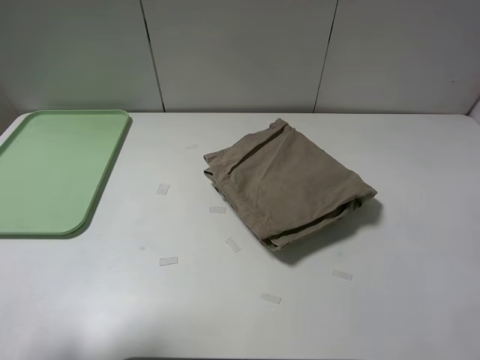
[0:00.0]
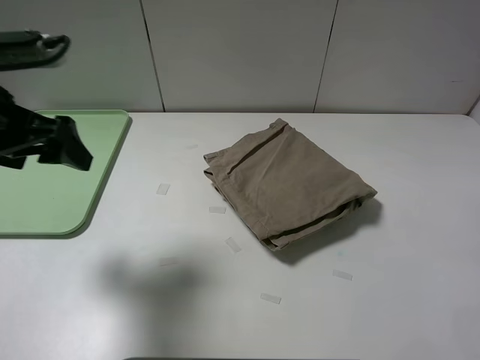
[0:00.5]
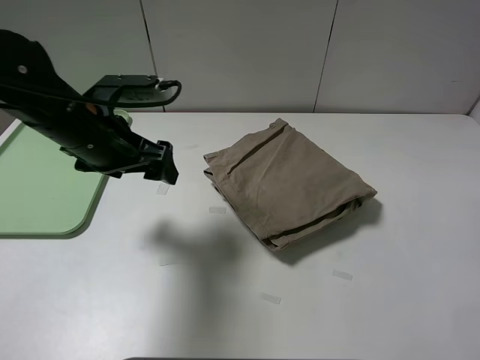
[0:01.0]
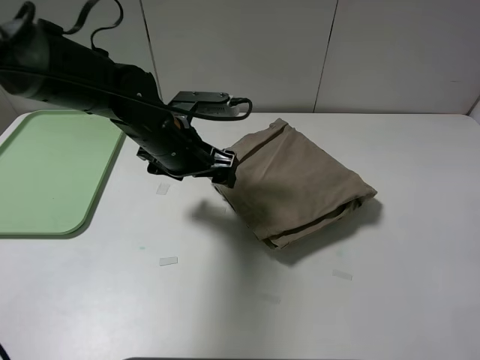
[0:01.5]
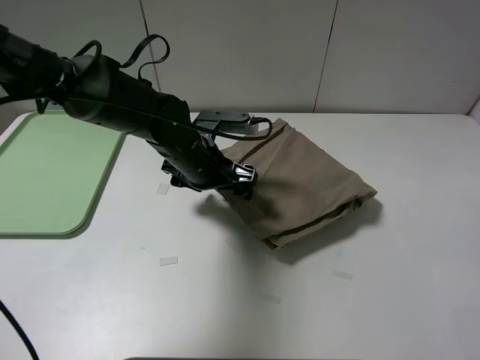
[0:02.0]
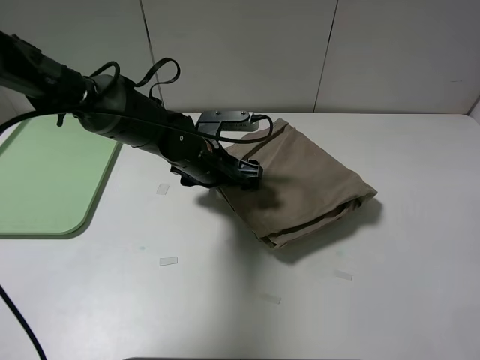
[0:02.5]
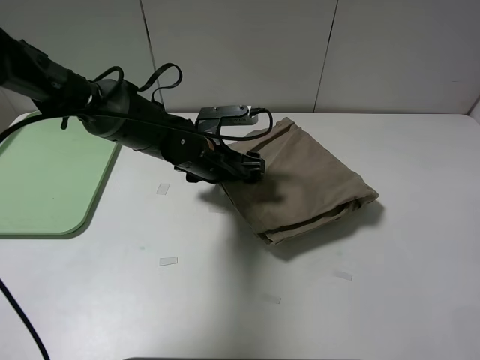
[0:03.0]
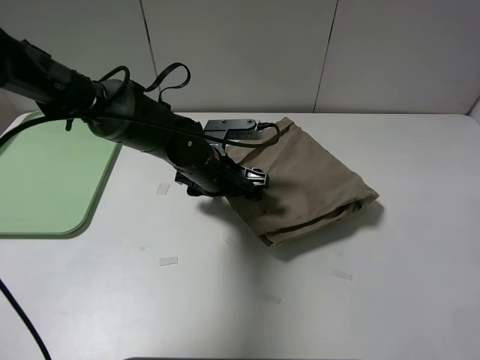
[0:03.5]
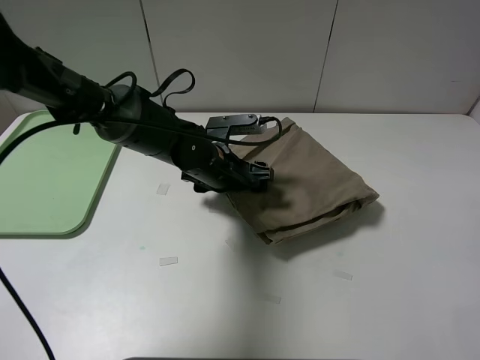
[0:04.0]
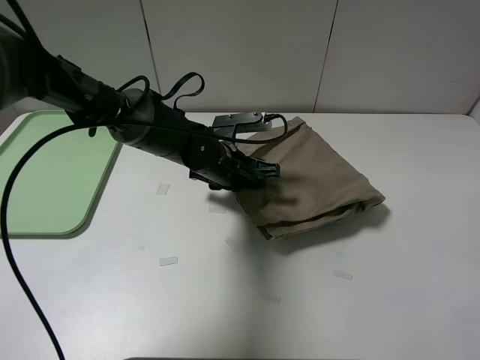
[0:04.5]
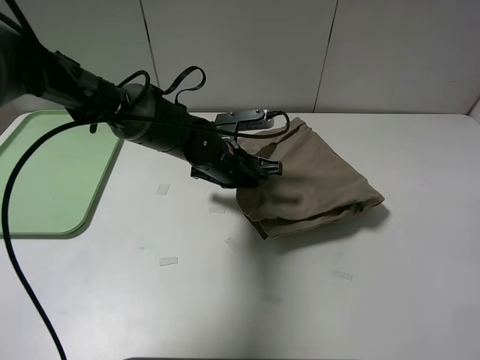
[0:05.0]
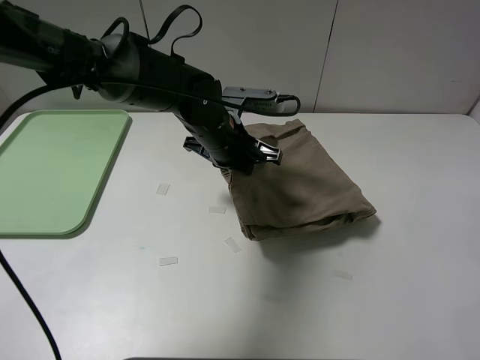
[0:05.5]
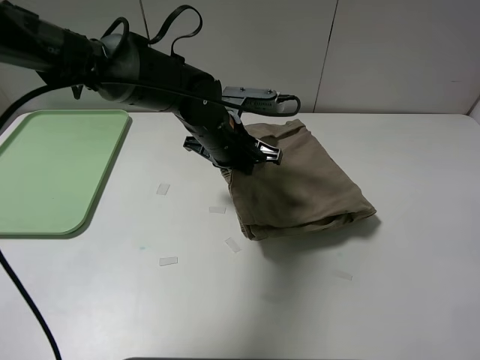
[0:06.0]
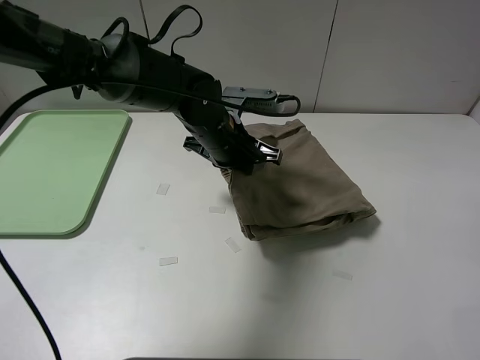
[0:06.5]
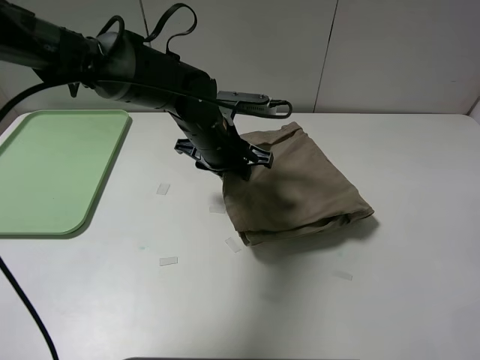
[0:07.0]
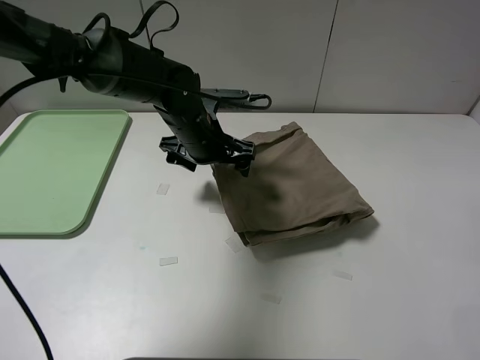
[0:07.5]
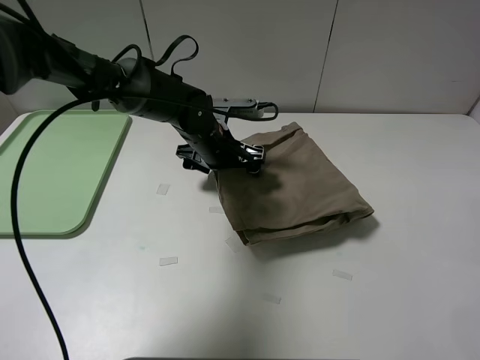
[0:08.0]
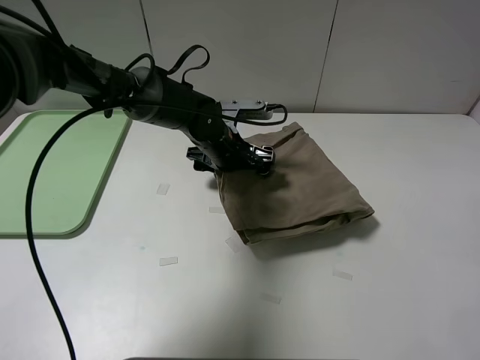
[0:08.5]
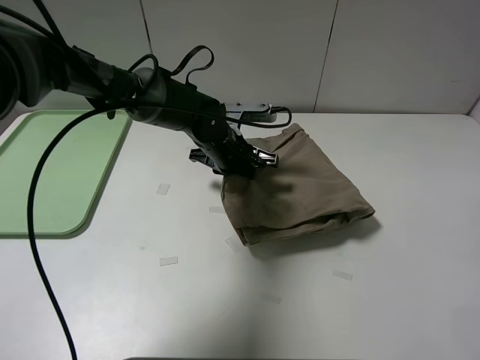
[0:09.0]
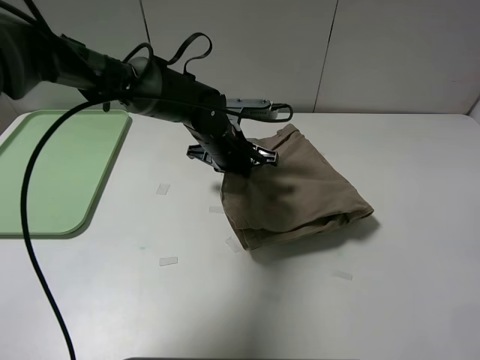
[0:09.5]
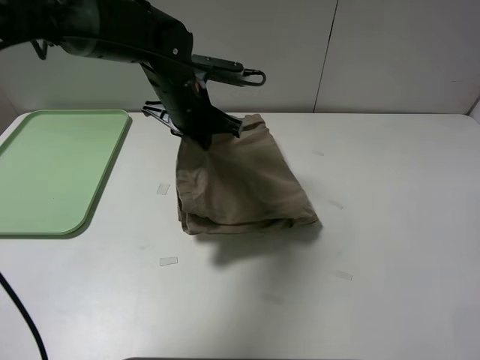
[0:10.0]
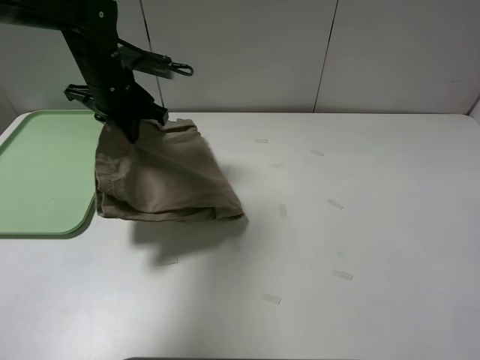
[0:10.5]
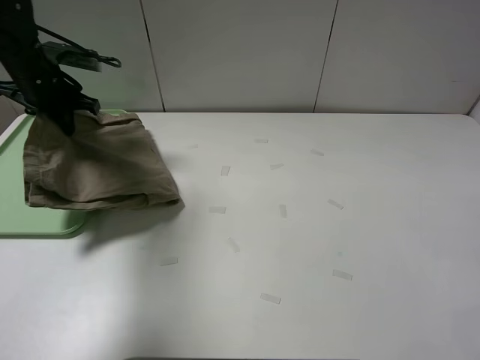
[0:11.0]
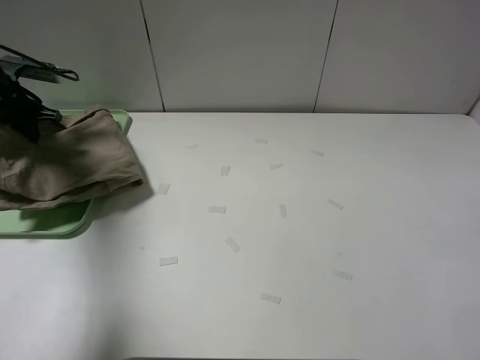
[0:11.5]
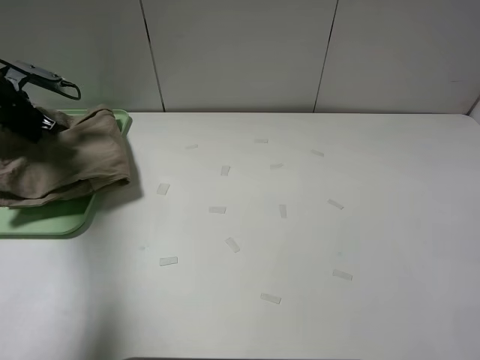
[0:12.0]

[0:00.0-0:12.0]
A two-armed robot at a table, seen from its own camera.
Task of the whole recording: fold the khaki jeans in half with two grippers, then fold them in half again, and use the left claw to place the folded fold khaki jeans on the tray.
Step, 0:00.0 to 0:09.0: Grasp the khaki trousers with the left gripper.
0:00.0 to 0:02.0: The left gripper is displaced to the right, downward and forward by about 40 cm.
0:02.0 to 0:04.0: The grippers stay close to where they were, moving slightly.
0:04.0 to 0:06.0: The left gripper heads upward, covering about 5 cm, and closes.
0:06.0 to 0:08.0: The left gripper shifts by some 5 cm, and opens its fingers.
0:08.0 to 0:10.0: The left gripper goes some 10 cm upward, and closes.
0:10.0 to 0:12.0: The left gripper is displaced to the left by approximately 35 cm.

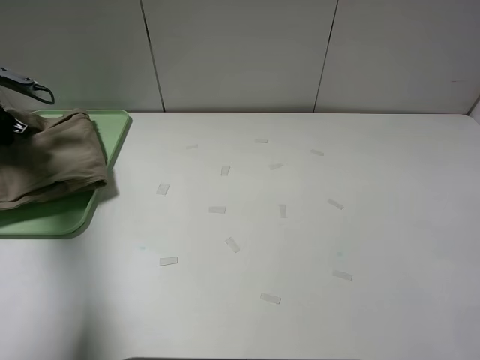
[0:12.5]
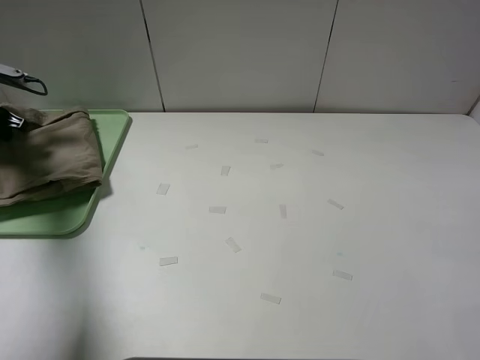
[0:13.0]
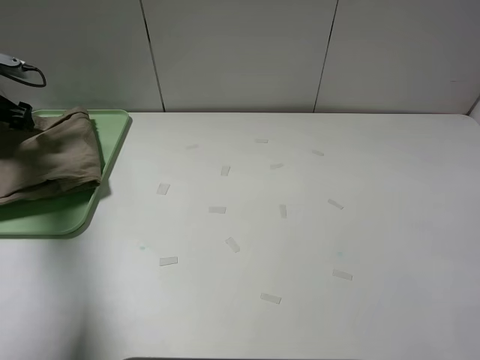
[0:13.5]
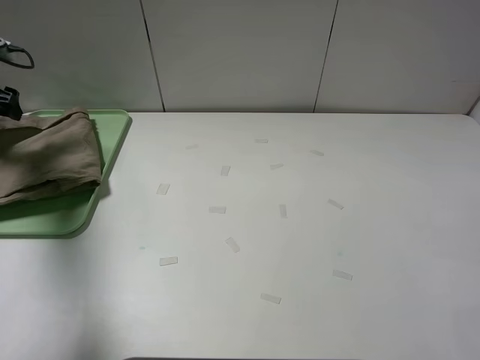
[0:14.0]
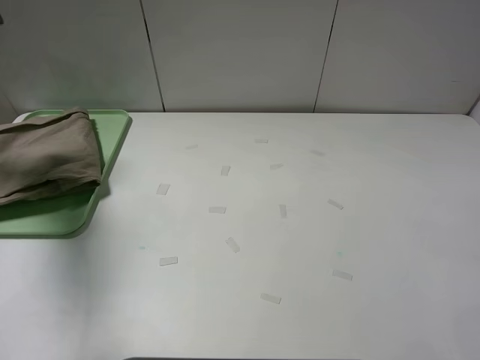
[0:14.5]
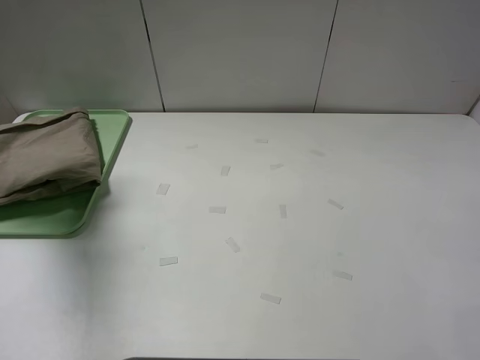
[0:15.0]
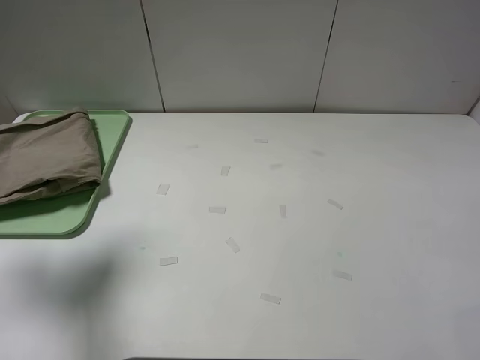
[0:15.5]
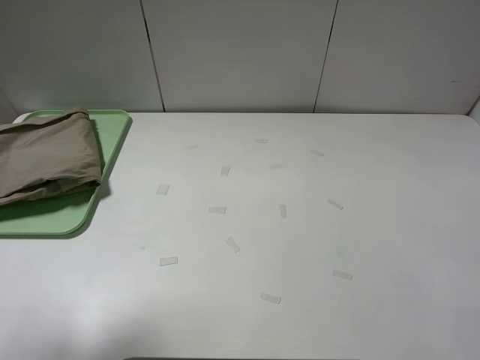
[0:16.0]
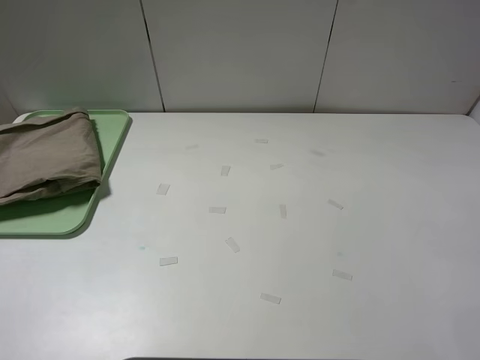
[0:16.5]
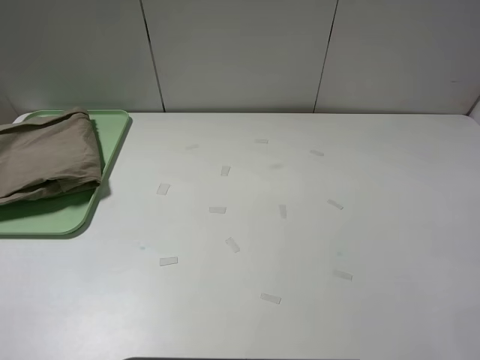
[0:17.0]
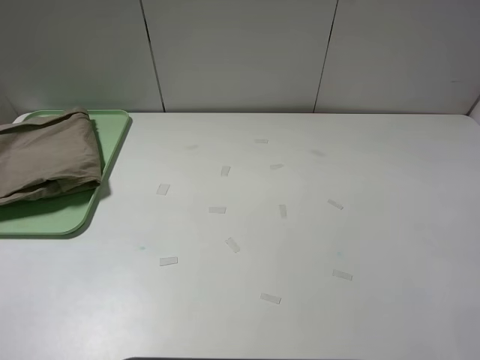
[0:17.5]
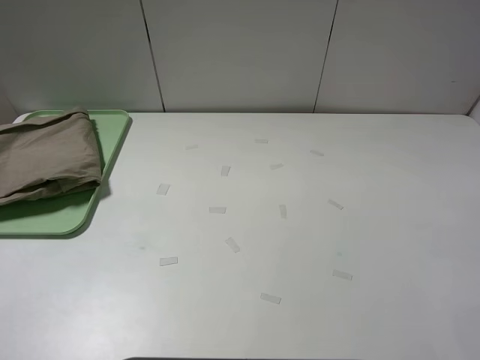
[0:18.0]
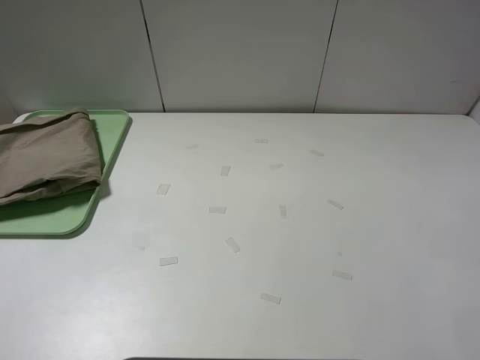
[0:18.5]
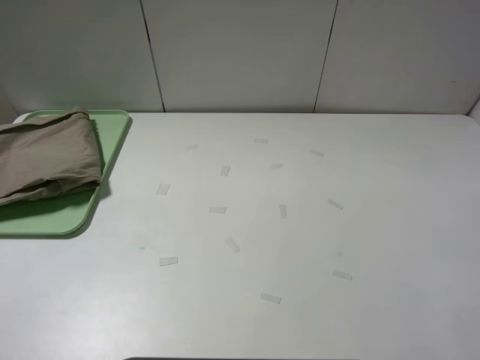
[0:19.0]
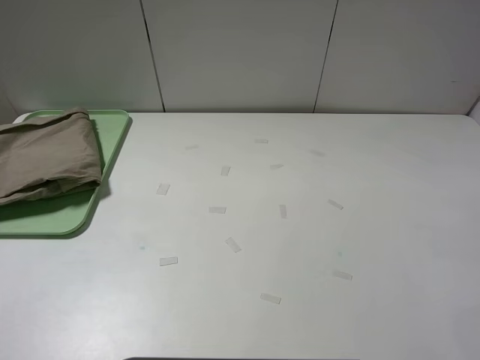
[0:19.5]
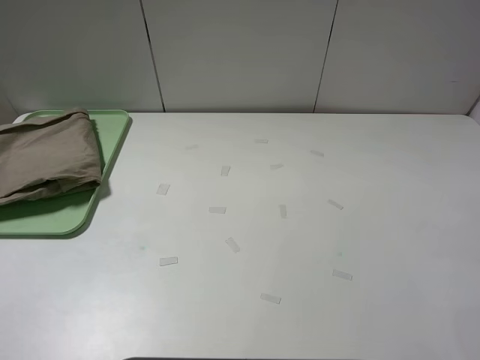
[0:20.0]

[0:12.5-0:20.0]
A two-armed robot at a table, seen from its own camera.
Task of the whole recording: fold the khaki jeans in half with two grippers, then fold them in half again, and use the left claw to place the folded fold khaki jeans on the tray.
0:12.5 to 0:14.5: The left gripper moves upward, approximately 15 cm, and opens up.
0:14.5 to 0:16.5: The left gripper shifts about 35 cm backward and to the right.
0:18.0 to 0:20.0: Neither gripper changes place.
